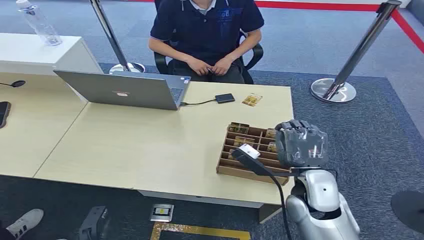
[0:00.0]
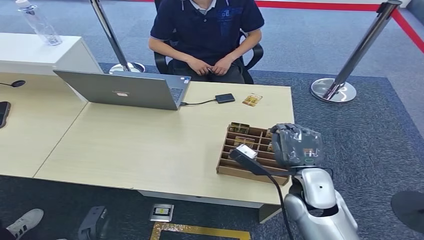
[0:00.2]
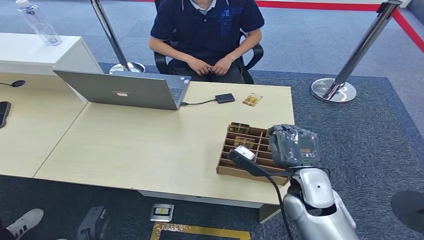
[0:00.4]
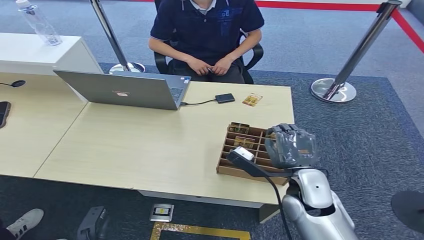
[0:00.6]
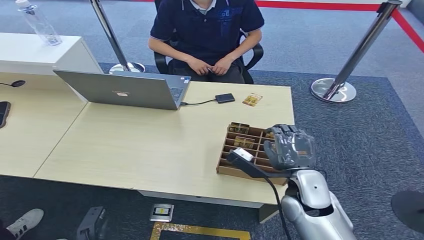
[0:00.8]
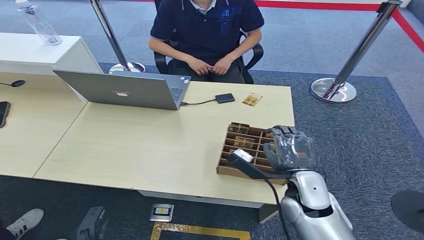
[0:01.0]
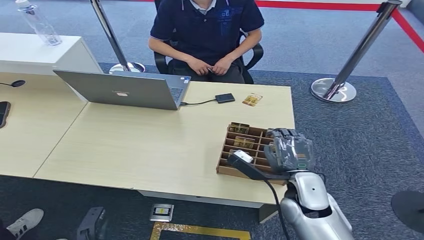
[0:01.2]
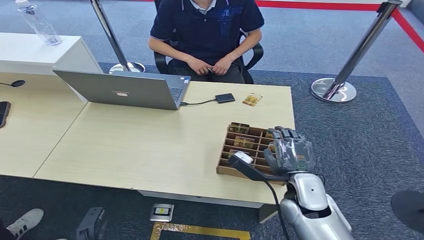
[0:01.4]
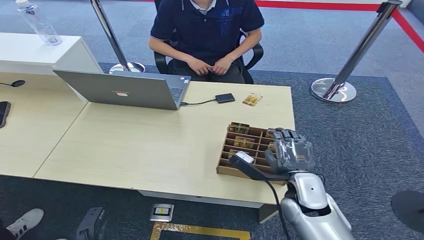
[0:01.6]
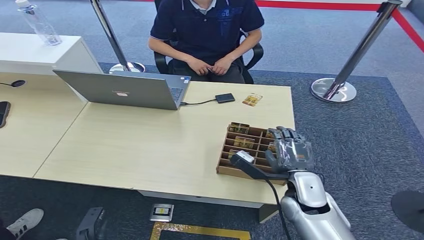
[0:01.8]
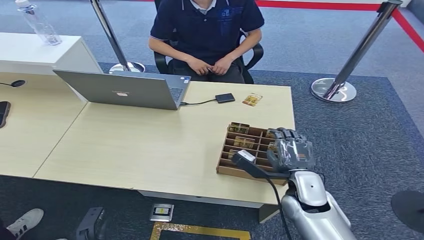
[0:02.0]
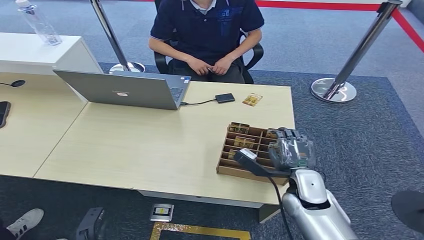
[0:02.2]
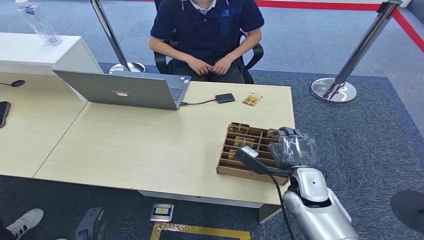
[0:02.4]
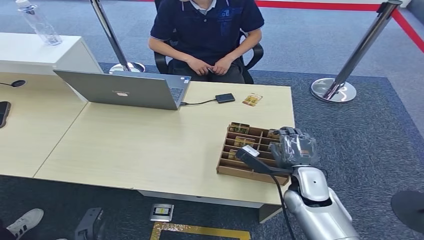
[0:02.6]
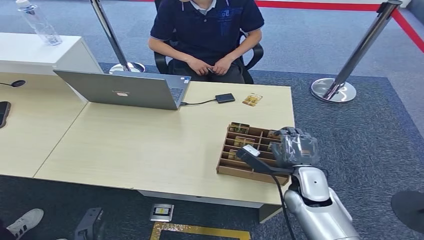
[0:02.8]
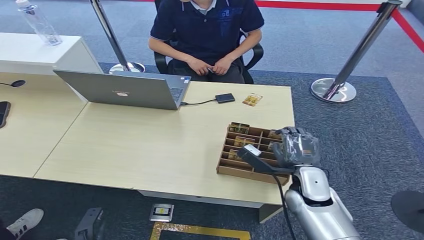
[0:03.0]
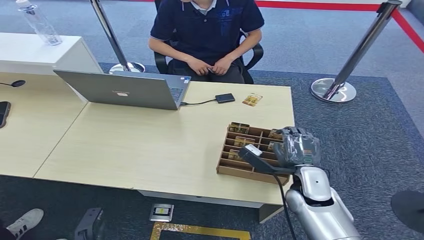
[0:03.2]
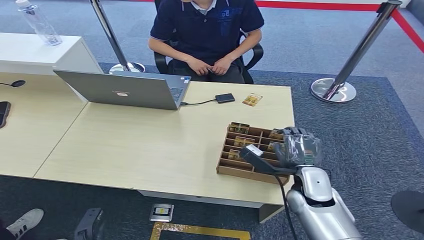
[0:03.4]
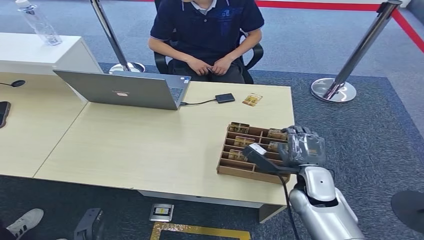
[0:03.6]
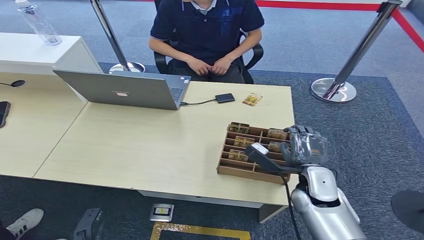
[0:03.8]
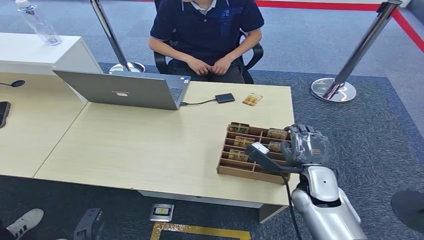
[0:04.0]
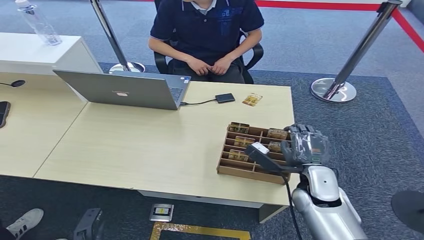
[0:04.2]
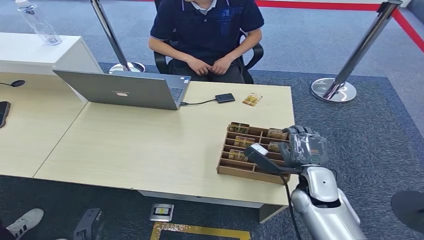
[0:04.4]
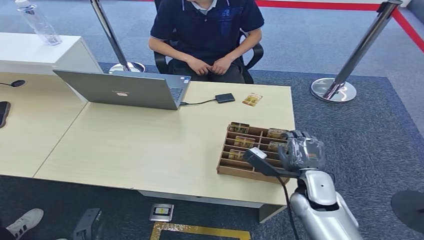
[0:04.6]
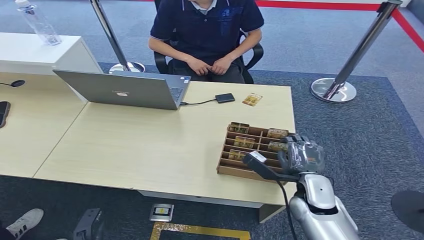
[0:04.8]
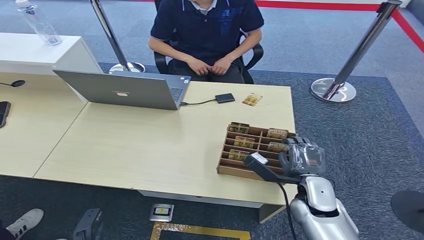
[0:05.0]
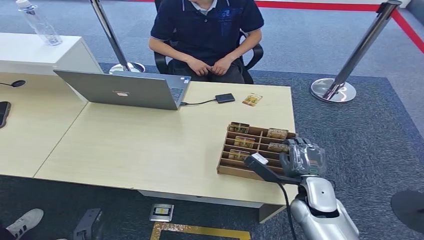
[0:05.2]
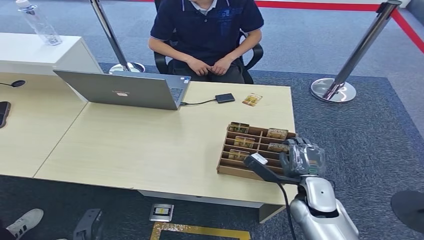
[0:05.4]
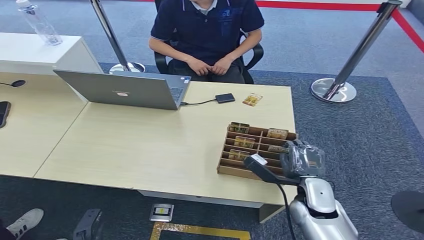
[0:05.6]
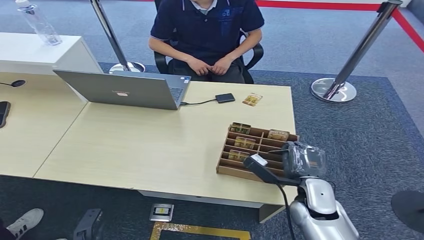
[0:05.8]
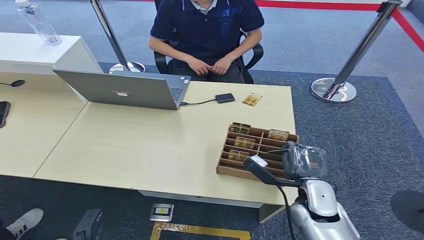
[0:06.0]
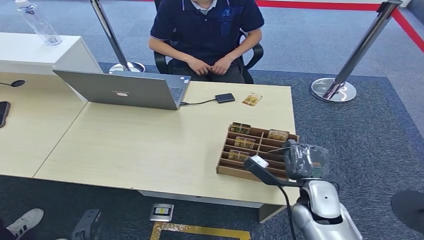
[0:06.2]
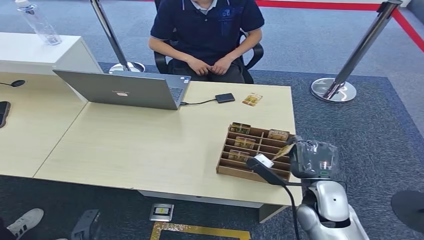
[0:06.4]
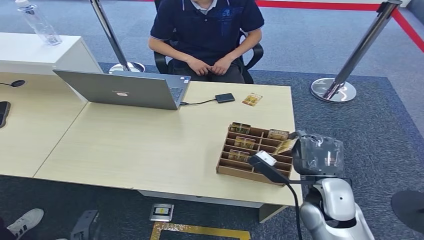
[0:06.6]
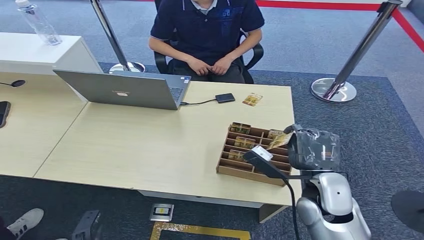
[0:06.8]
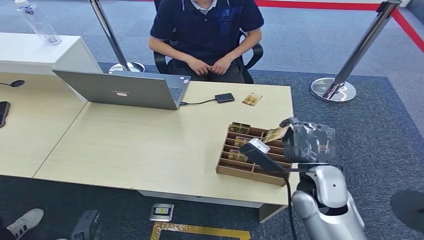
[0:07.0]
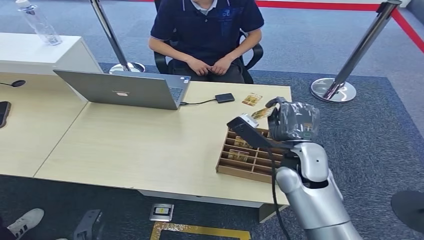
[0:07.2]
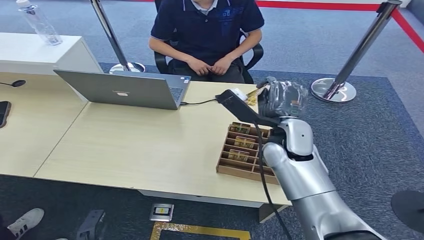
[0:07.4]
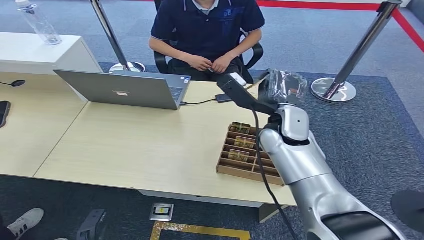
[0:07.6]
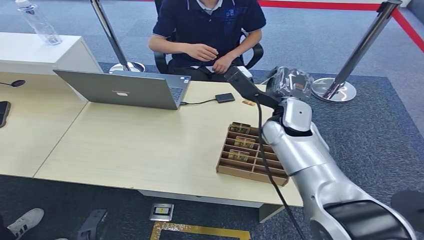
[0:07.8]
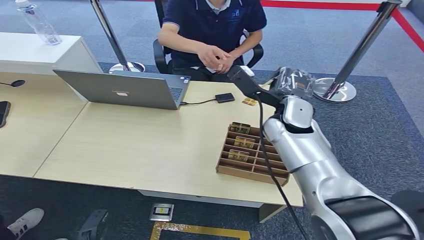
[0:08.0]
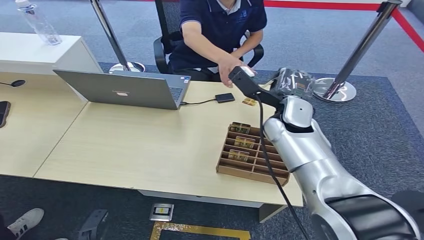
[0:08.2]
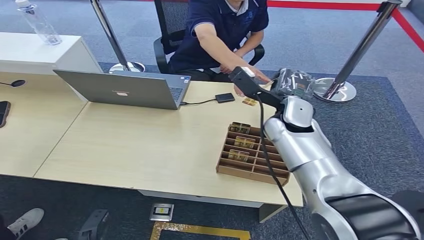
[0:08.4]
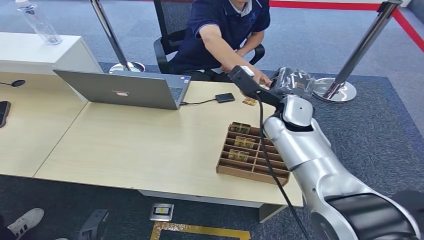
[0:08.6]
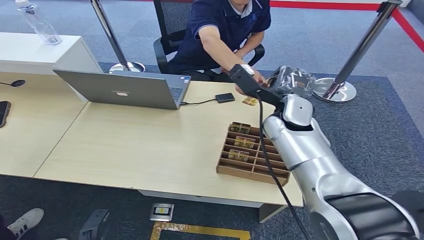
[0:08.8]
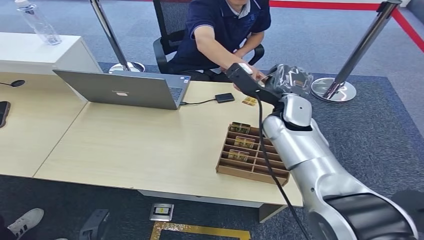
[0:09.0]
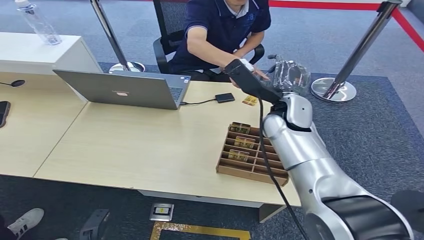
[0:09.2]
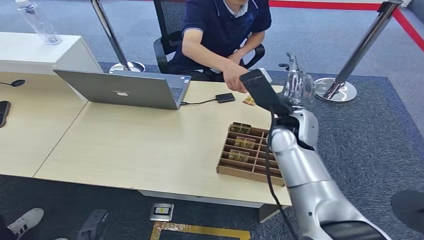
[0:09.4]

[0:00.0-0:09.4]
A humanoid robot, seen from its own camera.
Step, 0:00.0 to 0:08.0: Pick up the key card from the card box.
Step, 0:08.2 to 0:09.2: Hand the key card to the target.
0:01.6 to 0:06.2: There are only small adjustments of the hands.
0:06.2 to 0:07.8: The right hand goes roughly 25 cm forward, upward and to the left.

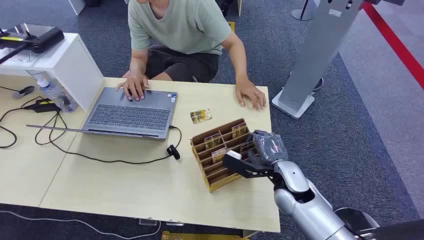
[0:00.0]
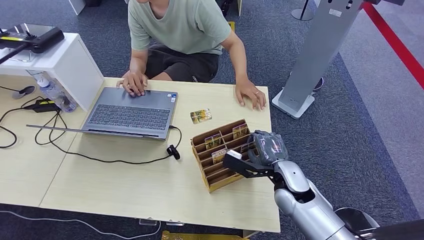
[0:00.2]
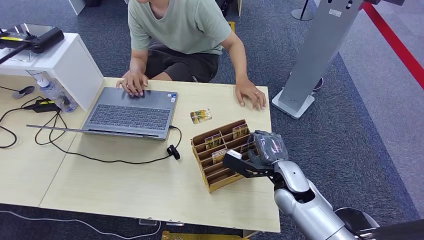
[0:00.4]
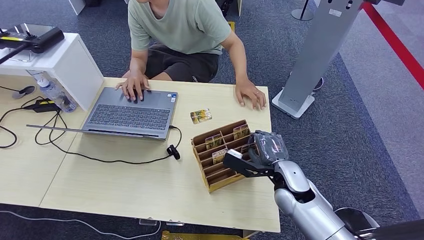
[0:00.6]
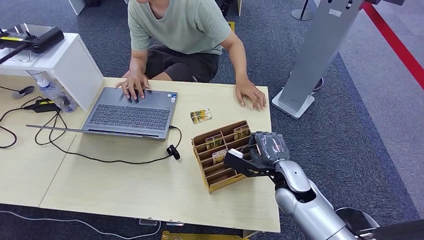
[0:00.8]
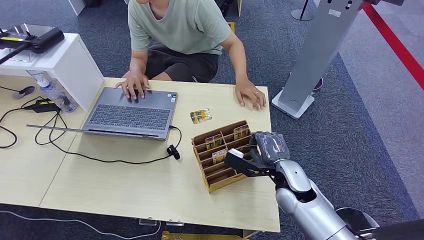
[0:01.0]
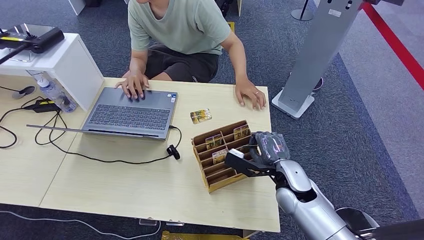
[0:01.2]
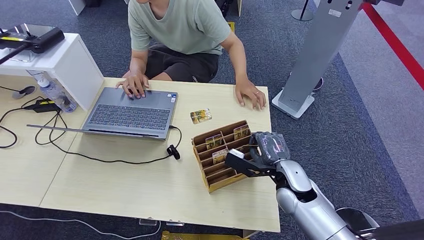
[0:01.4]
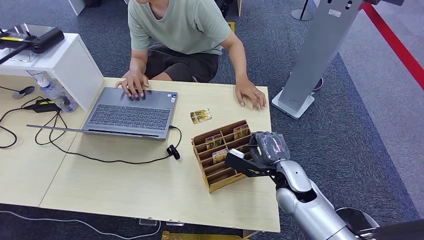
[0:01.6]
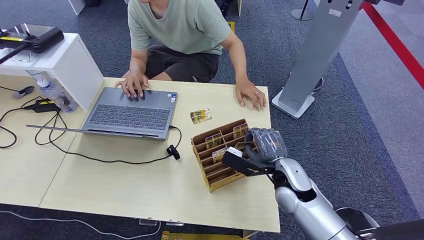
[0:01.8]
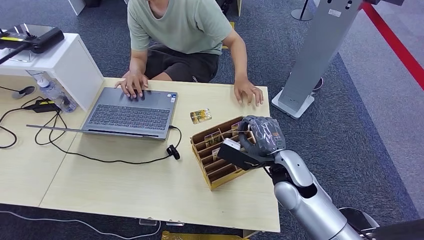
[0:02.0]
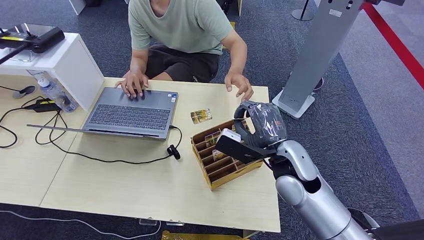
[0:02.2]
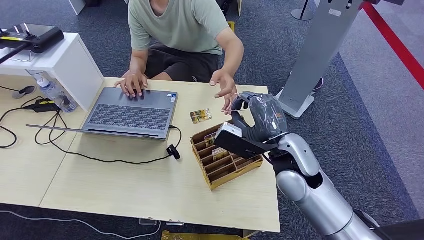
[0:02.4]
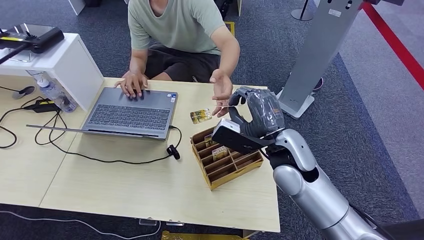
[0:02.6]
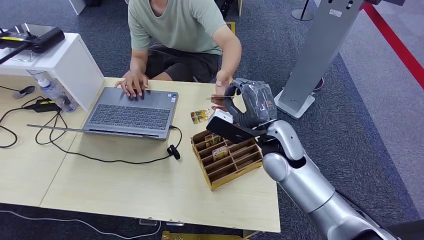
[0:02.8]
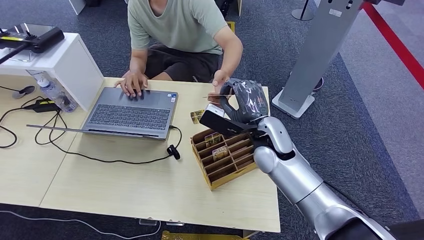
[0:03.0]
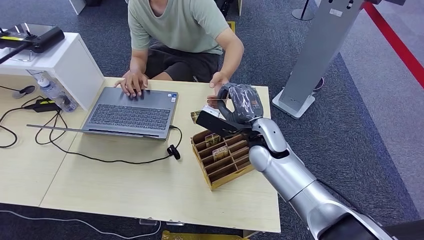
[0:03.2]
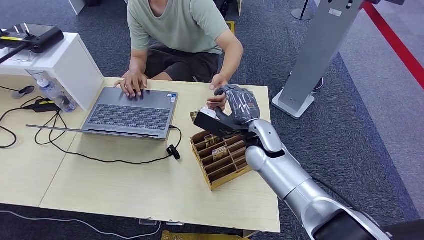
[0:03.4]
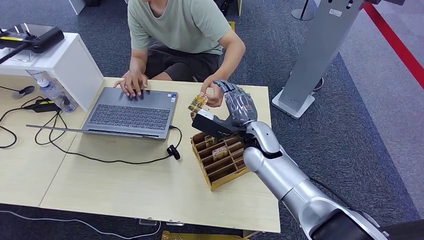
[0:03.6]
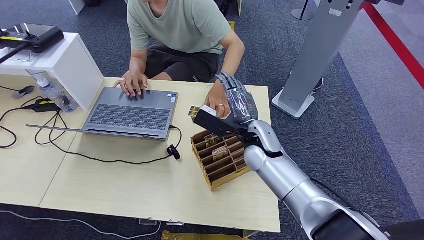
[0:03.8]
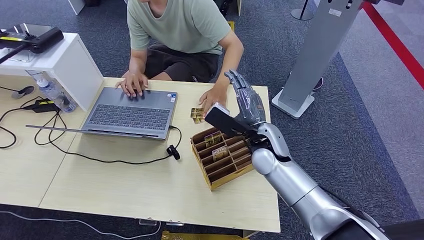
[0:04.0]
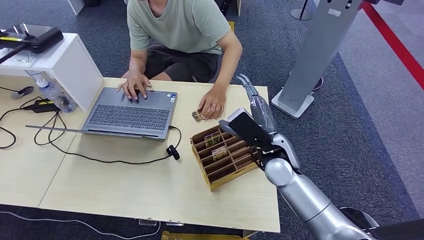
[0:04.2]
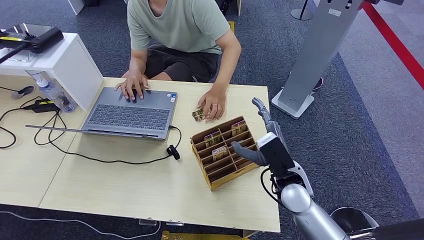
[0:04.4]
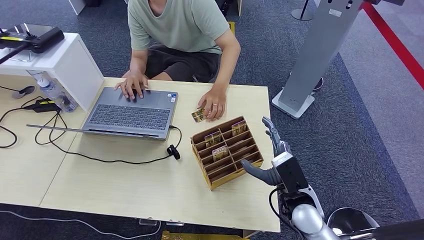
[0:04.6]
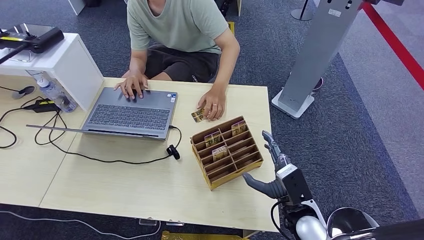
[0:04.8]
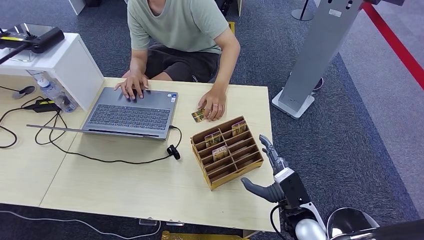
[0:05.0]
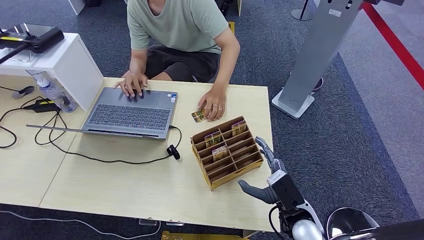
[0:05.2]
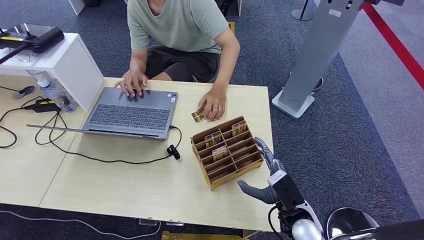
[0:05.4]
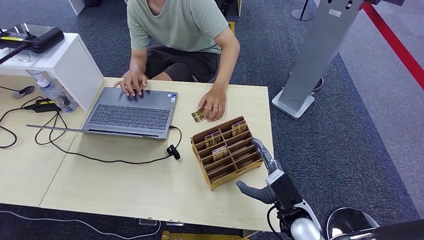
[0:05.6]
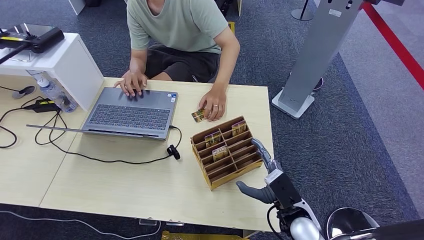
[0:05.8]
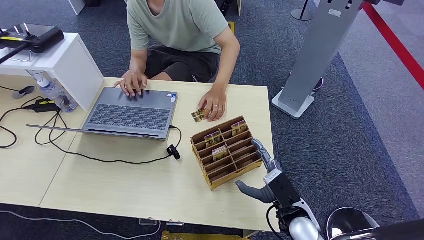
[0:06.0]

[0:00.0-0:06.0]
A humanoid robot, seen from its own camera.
Step, 0:00.0 to 0:01.8: Pick up the key card from the card box.
Step, 0:02.0 to 0:06.0: Hand the key card to the target.
0:01.6 to 0:03.0: The right hand shifts some 15 cm upward, to the left and forward.
0:03.0 to 0:04.4: The right hand shifts about 10 cm downward, backward and to the right.
0:04.4 to 0:06.0: The right hand moves downward and backward, some 10 cm.
